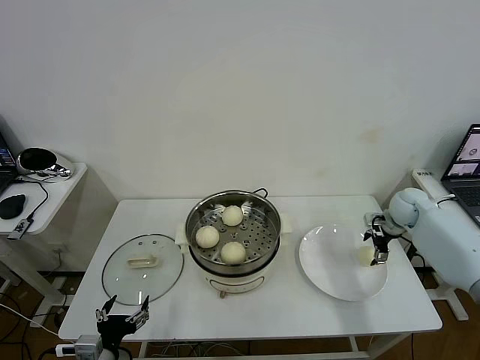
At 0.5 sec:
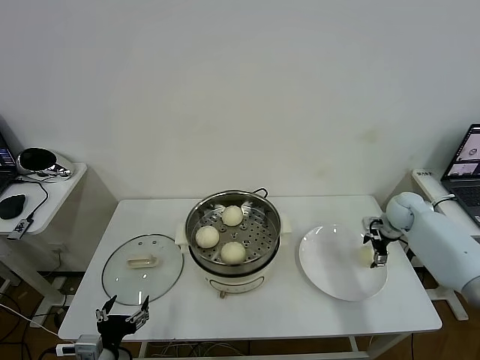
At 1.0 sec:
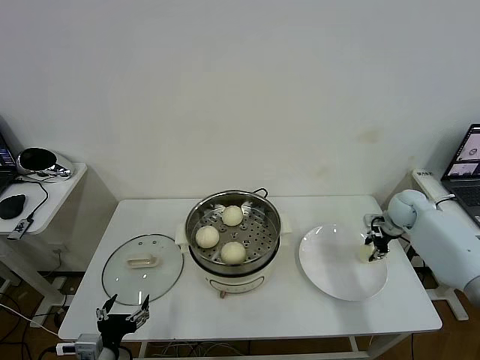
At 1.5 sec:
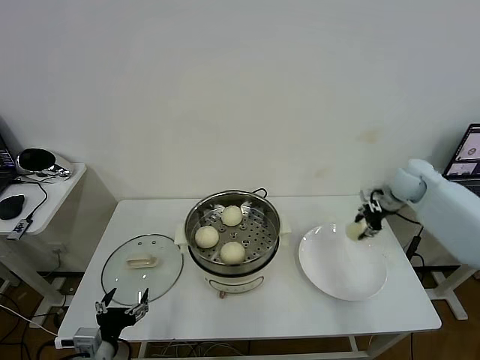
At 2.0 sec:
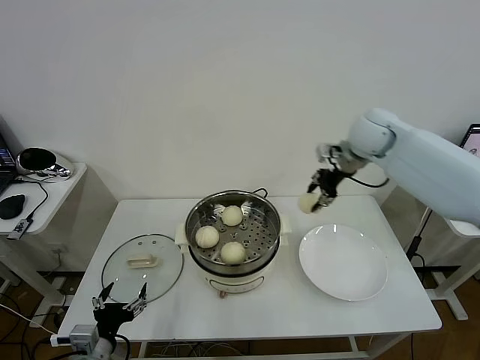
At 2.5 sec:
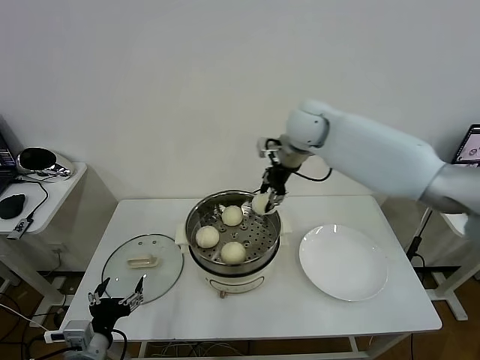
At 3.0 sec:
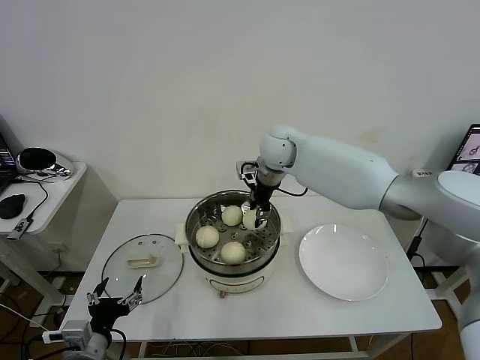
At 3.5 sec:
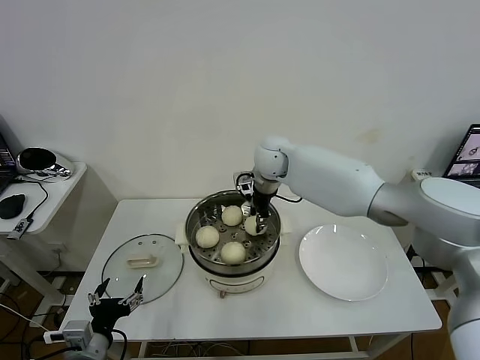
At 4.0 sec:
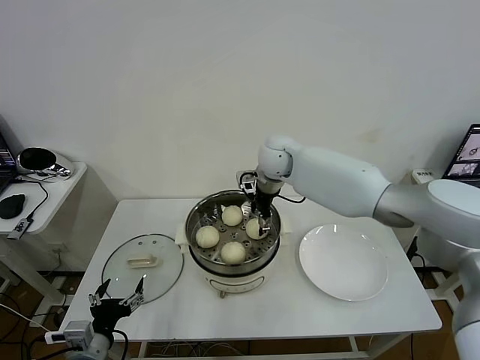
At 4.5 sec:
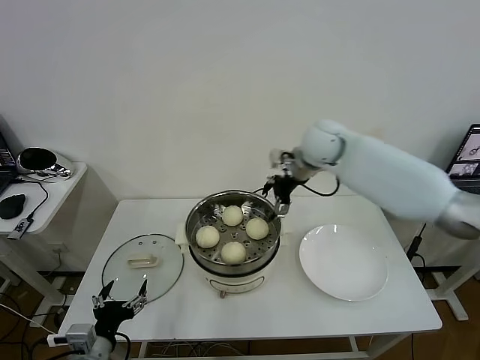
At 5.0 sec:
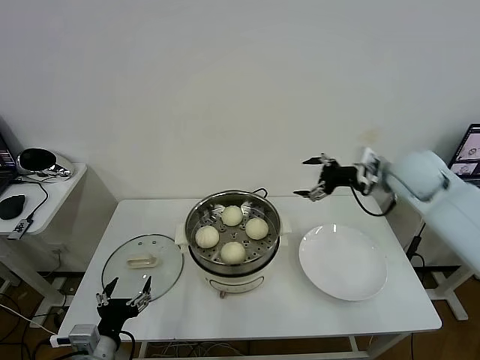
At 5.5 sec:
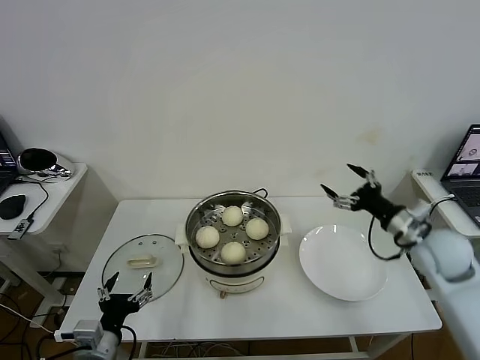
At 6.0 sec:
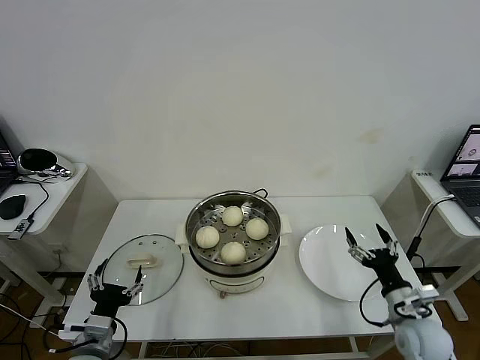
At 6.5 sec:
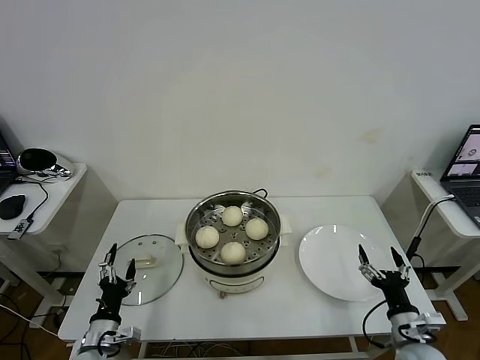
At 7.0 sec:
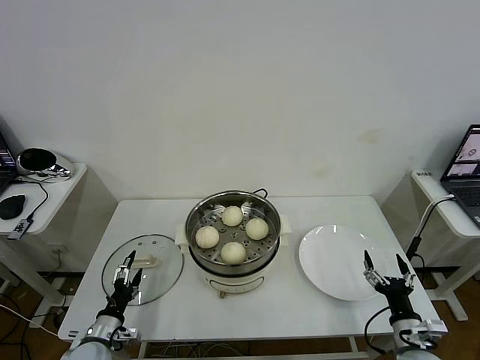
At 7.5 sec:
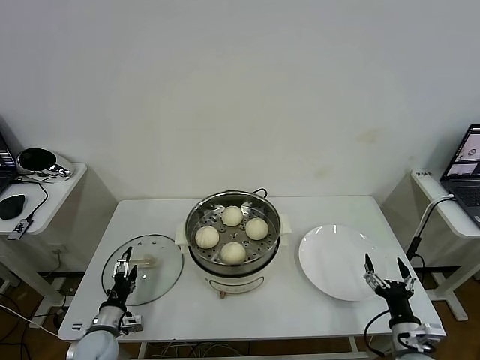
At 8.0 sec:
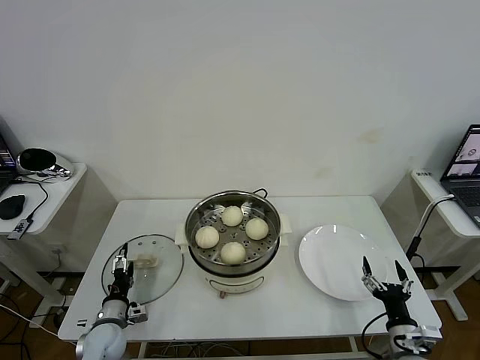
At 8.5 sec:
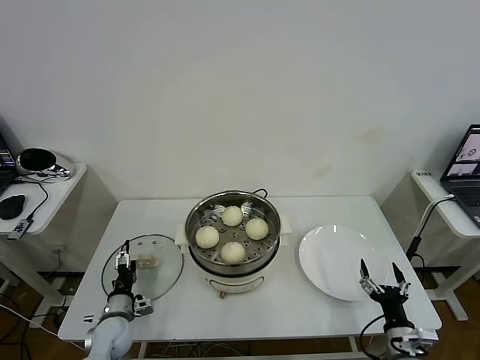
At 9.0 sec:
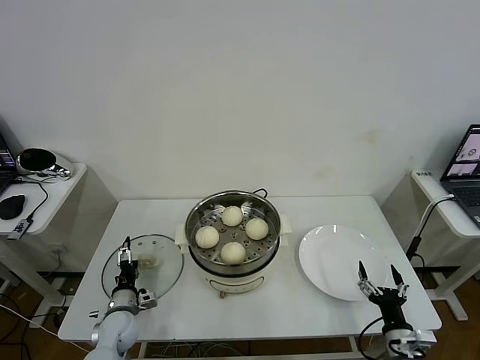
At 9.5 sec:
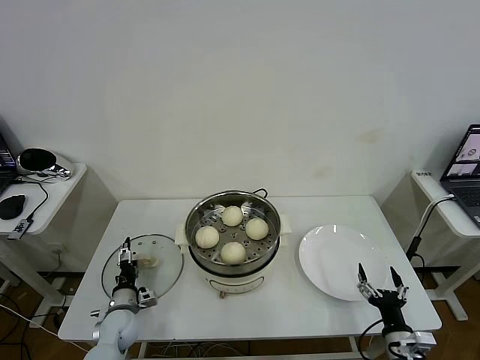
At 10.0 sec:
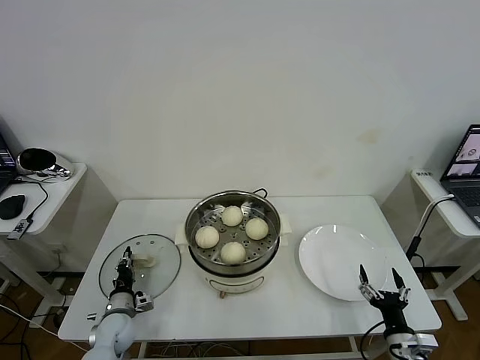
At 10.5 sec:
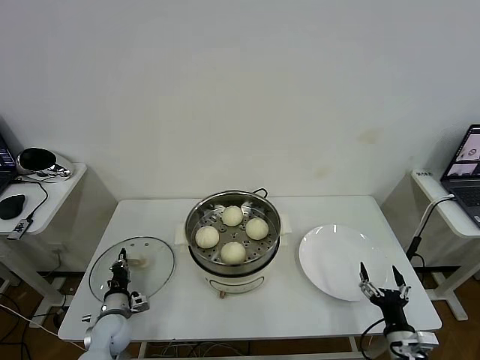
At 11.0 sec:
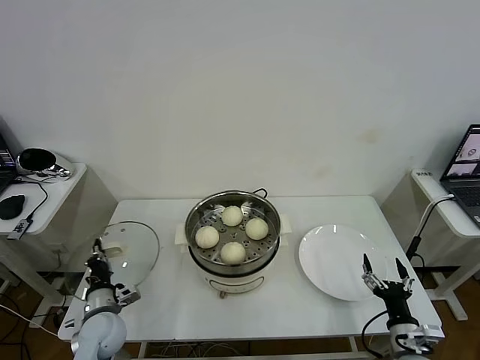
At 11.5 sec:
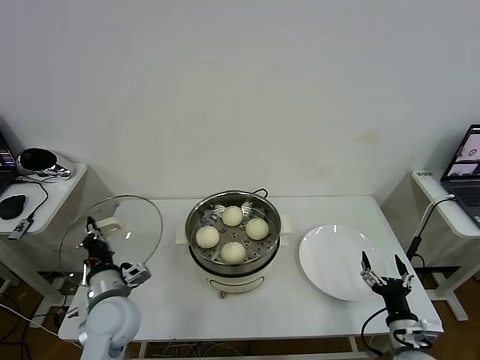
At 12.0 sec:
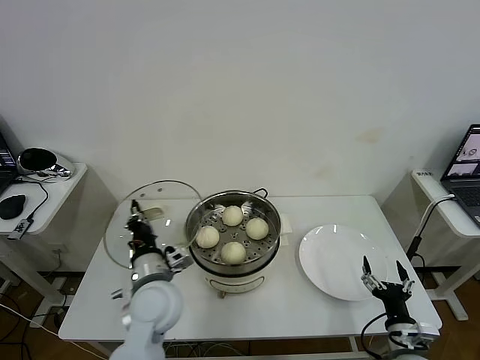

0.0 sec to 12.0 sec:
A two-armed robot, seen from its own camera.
Task of the whole recording: take steamed baozi put them in steamer then cover it.
Step, 1.5 sec to 4.0 sec: Place the baozi on the steamer with right gripper.
Step, 4.5 sec to 10.0 sec: Grasp the pot lid with left gripper.
0.0 sec to 2.0 sec: The right gripper shifts about 30 cm upward and to the left, and closes its fingers.
2.0 sec to 4.0 sec: The right gripper heads to the left and downward, covering some 20 cm, and opens.
4.0 sec to 6.0 sec: The right gripper is displaced backward, to the right and downward by about 50 cm.
6.0 sec to 8.0 sec: The right gripper moves backward and downward, some 10 cm. Meanwhile the left gripper travels downward and forward by approximately 15 cm.
8.0 sec to 10.0 sec: The left gripper closes.
10.0 sec to 12.0 sec: The left gripper goes roughly 30 cm upward and to the right.

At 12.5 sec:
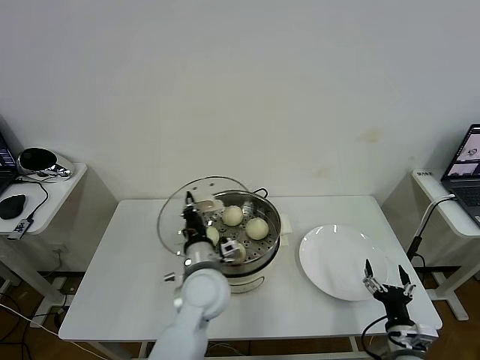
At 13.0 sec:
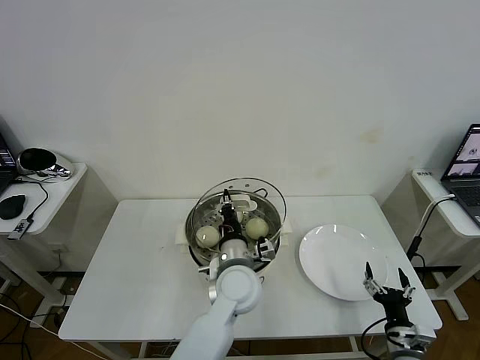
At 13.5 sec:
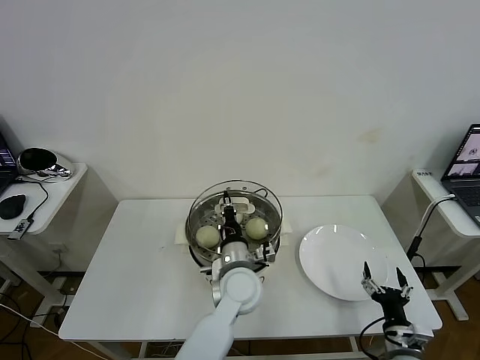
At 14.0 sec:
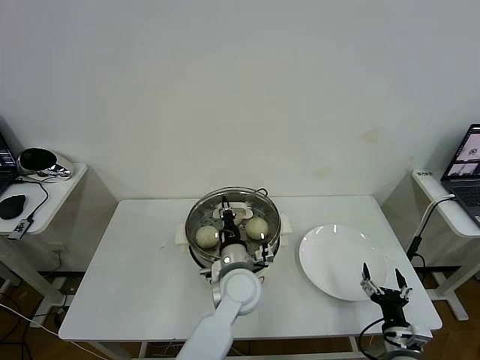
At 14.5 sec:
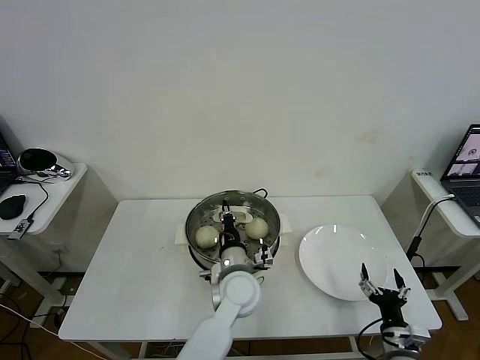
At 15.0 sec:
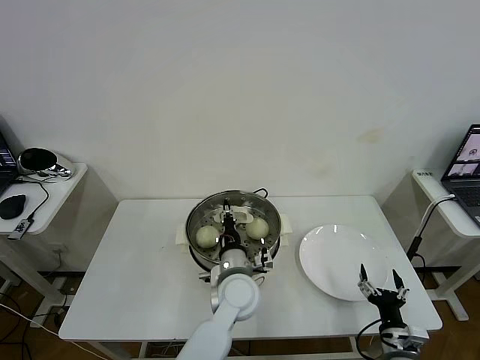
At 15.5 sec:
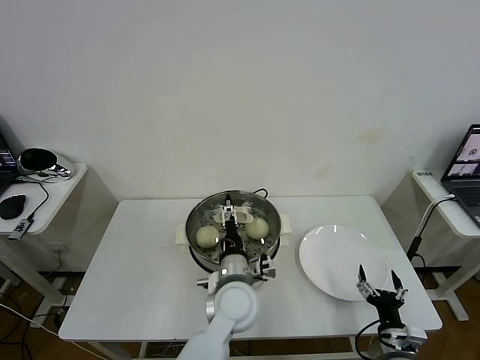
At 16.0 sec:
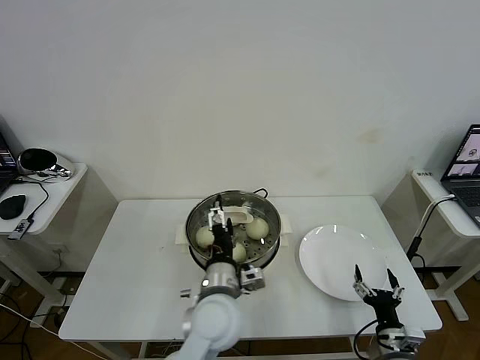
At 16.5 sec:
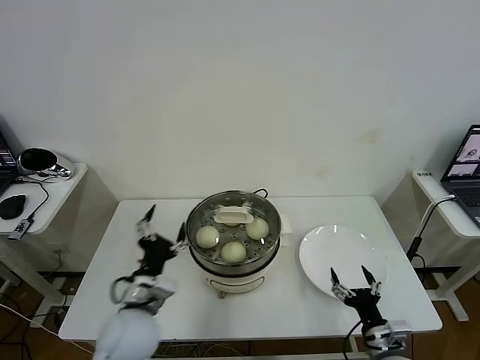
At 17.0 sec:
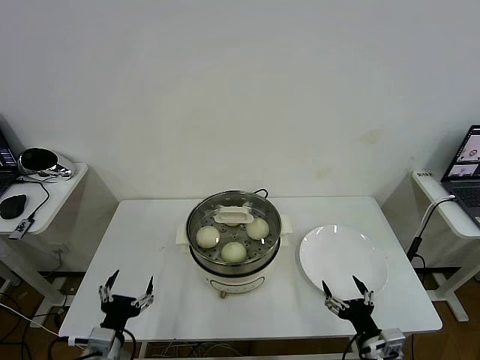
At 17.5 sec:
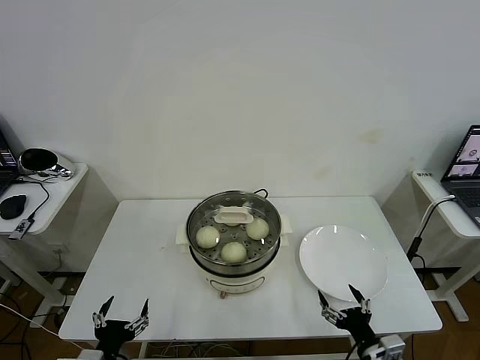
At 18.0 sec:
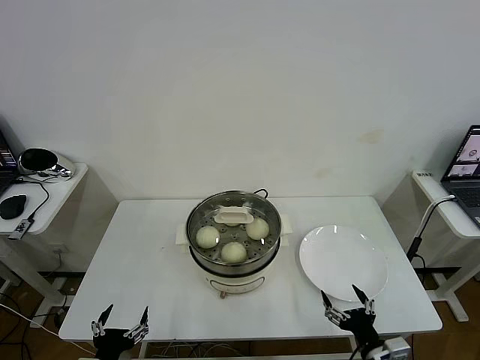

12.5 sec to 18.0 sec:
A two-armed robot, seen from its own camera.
Task of the whole recording: take steamed baozi put them in steamer then cover it.
Step, 12.5 sec to 15.0 sec: Place the pot lid on the steamer with left gripper.
12.5 sec to 14.5 sec: The left gripper travels to the right by some 5 cm.
14.5 sec to 16.0 sec: The left gripper travels backward by about 5 cm, and opens its fingers.
16.0 sec to 18.0 sec: The right gripper changes place by approximately 5 cm. The left gripper travels to the left and backward by about 30 cm.
